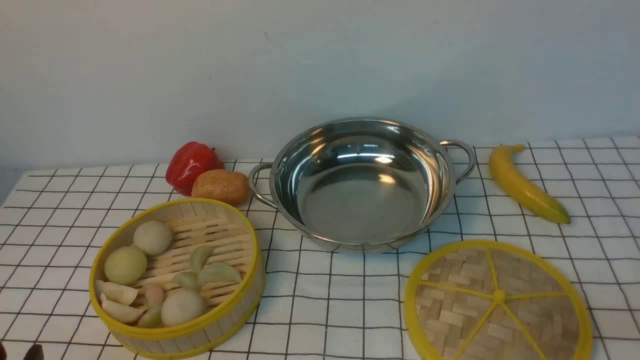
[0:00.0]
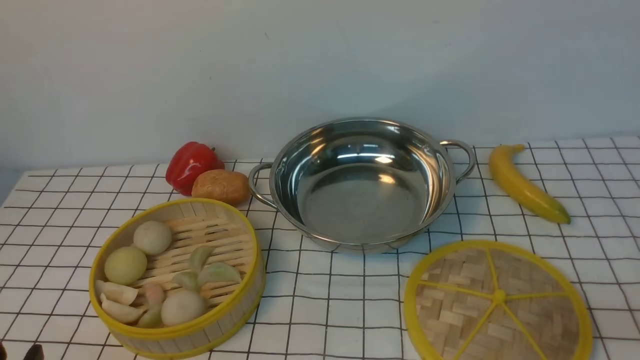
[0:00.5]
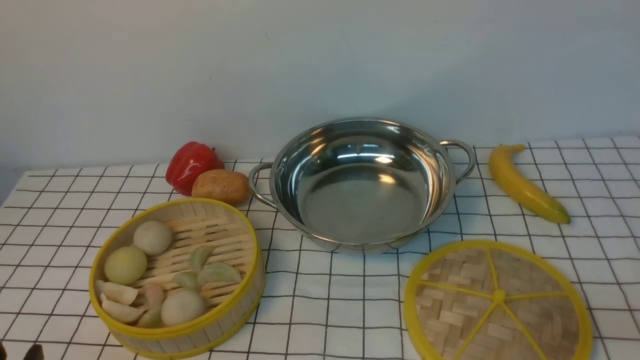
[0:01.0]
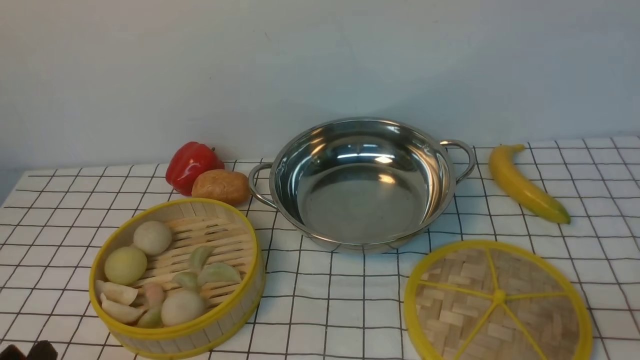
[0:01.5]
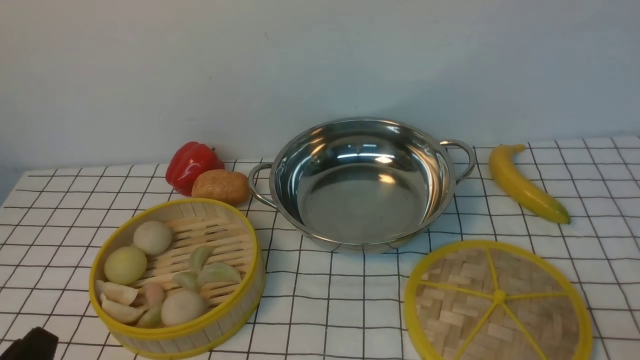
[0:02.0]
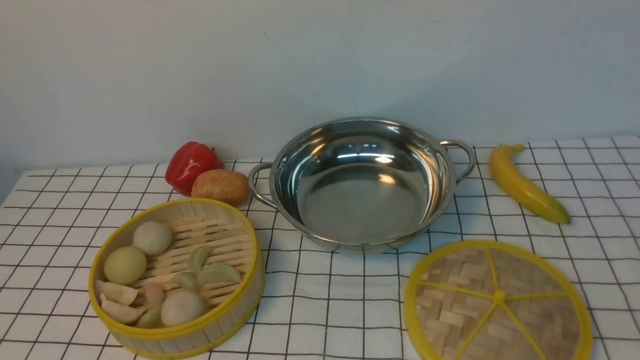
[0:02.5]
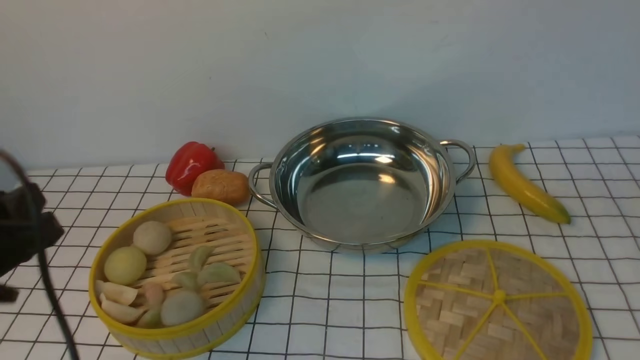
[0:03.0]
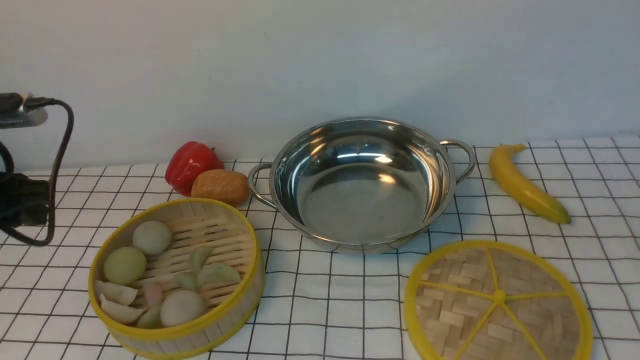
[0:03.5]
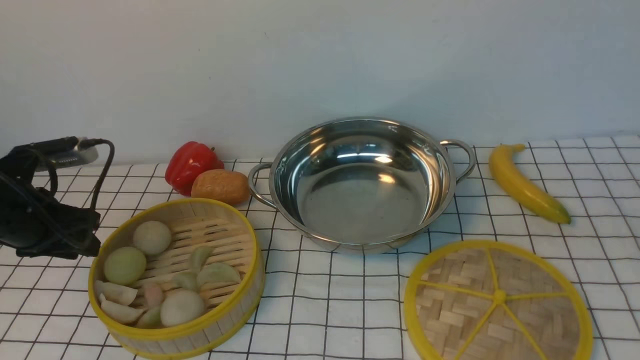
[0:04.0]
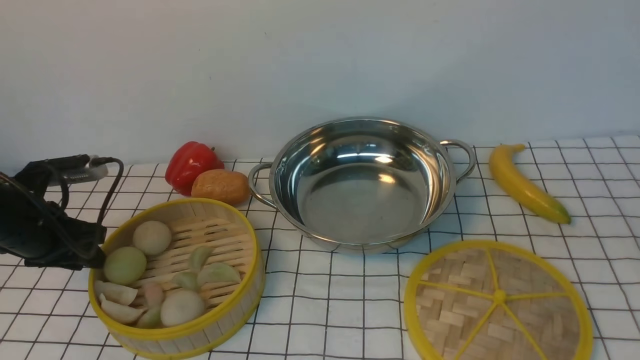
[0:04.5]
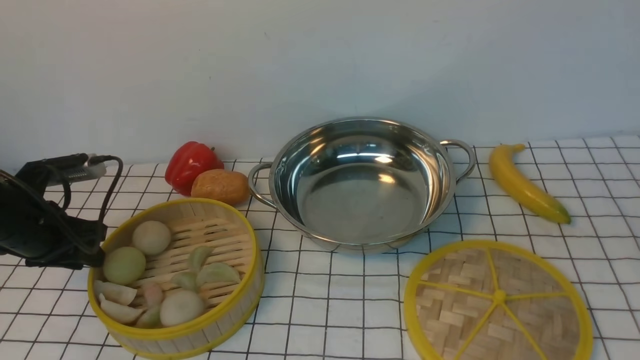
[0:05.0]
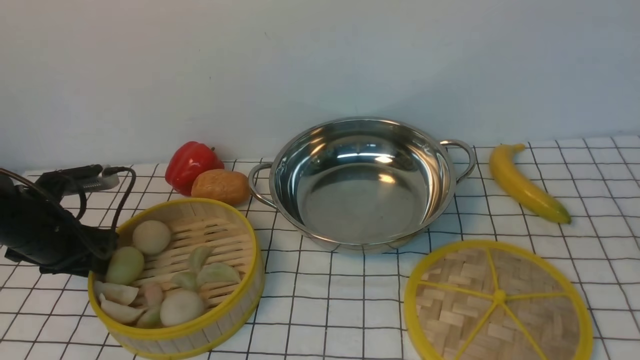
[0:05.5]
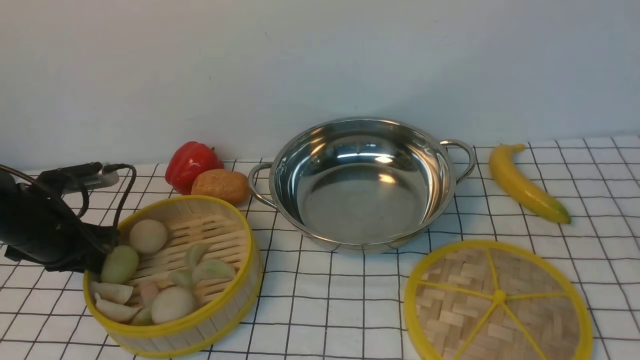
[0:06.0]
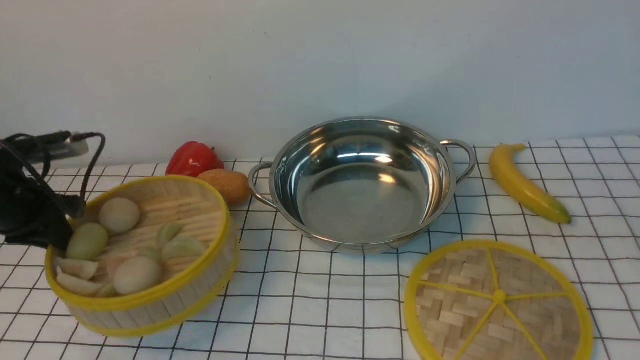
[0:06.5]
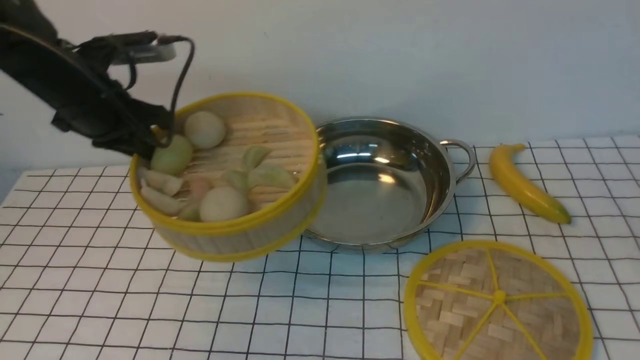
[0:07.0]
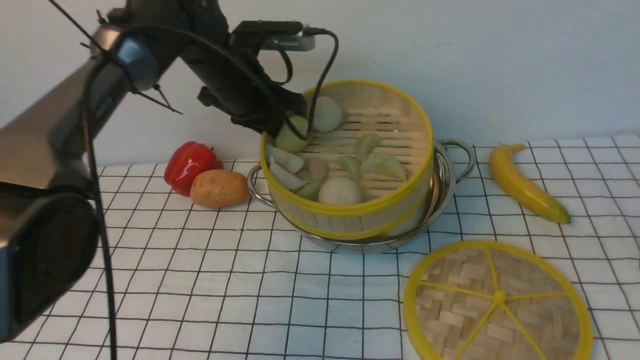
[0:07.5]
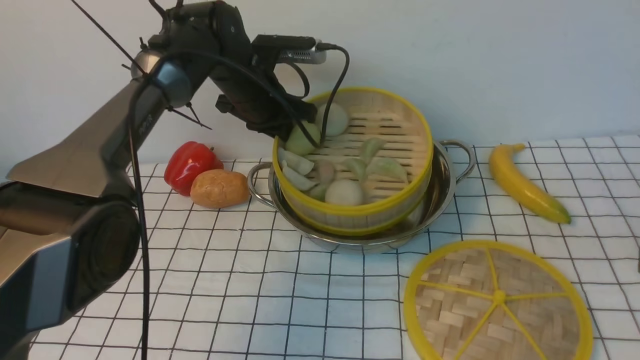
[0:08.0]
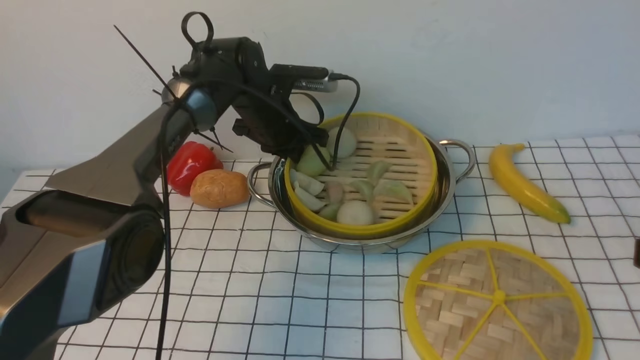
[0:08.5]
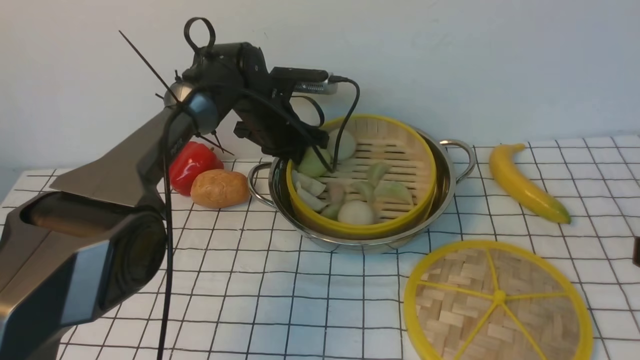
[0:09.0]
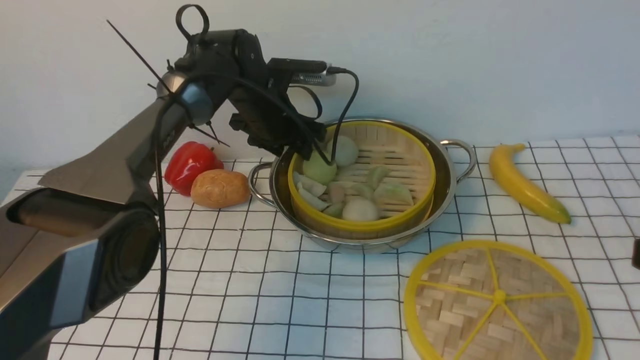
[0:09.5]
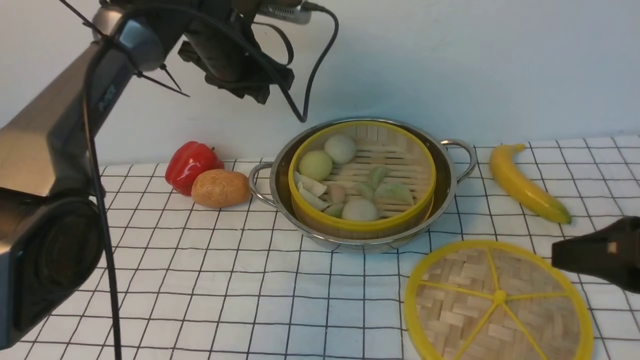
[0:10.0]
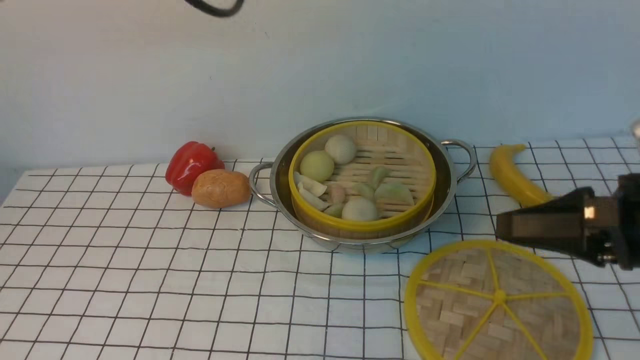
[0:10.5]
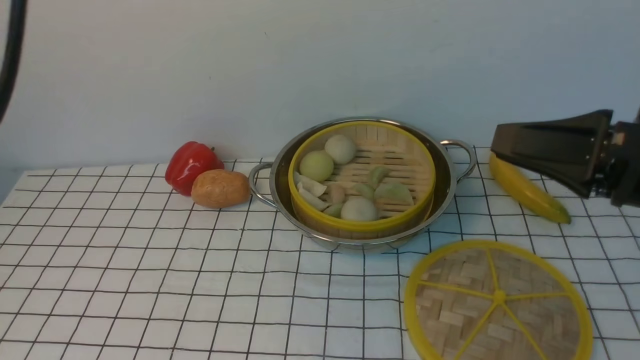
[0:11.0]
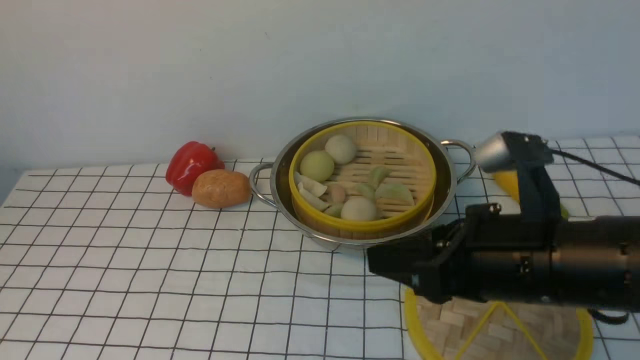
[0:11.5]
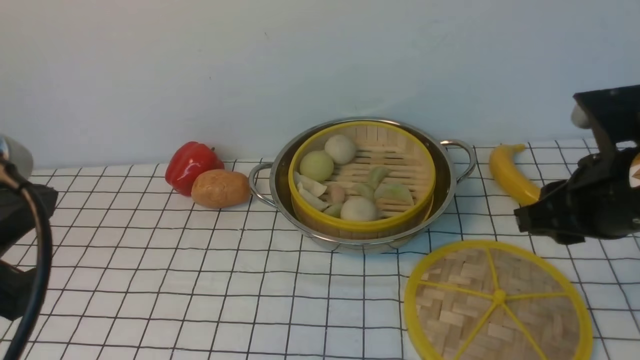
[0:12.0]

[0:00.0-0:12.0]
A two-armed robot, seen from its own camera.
Task of the whole recording: place the steamer in the pot on the white tablecloth, and put the lid on the steamer.
Step, 0:00.0 to 0:06.0: use the left arm to lift the steamer closest to it.
Step, 0:06.5 to 0:09.5: use the left arm to put the steamer into the iron steamer pot in the middle.
0:02.0 to 0:04.0: The left gripper shifts some 25 cm forward.
0:04.0 to 0:06.0: The left gripper heads downward, covering roughly 5 cm, and closes up.
0:06.0 to 0:08.0: The left gripper moves to the right and forward, roughly 30 cm.
0:08.0 to 0:10.0: The right gripper moves approximately 5 cm; the left gripper travels upward by some 5 cm, and opens its fingers.
0:10.0 to 0:12.0: The right gripper heads forward and to the left, covering about 10 cm. Meanwhile the left gripper shifts some 35 cm backward, and closes its fingers.

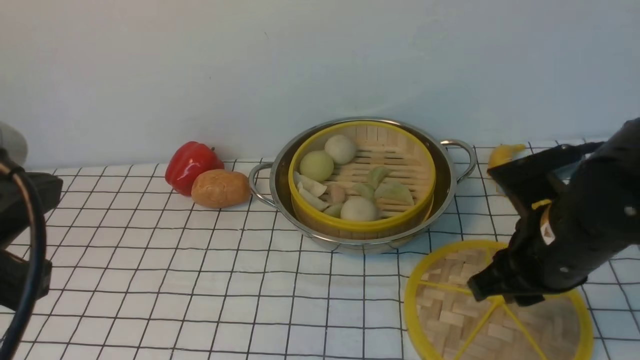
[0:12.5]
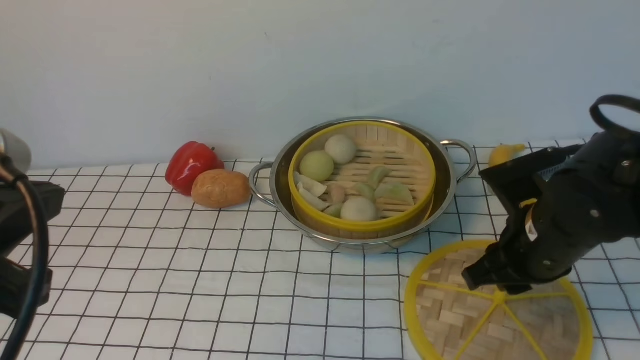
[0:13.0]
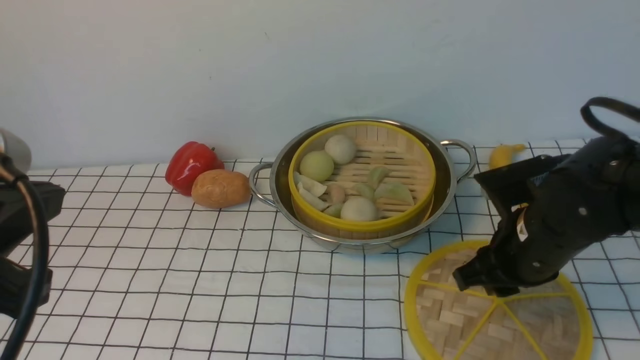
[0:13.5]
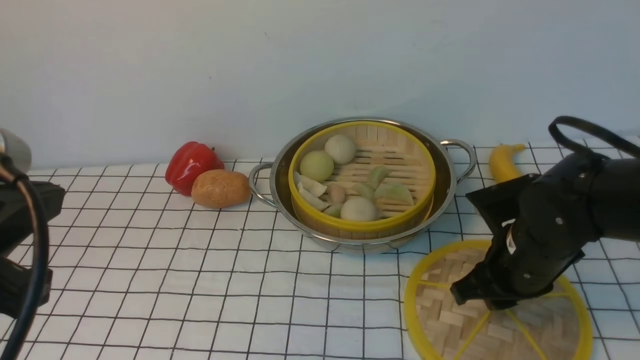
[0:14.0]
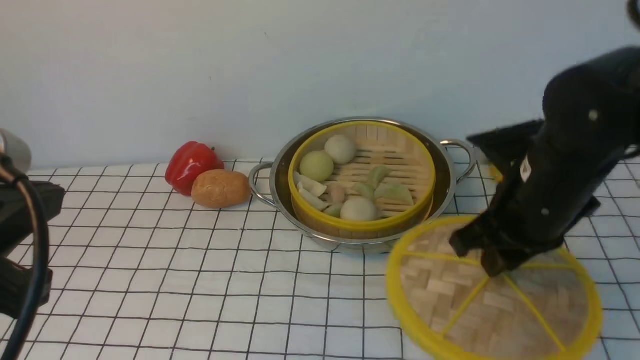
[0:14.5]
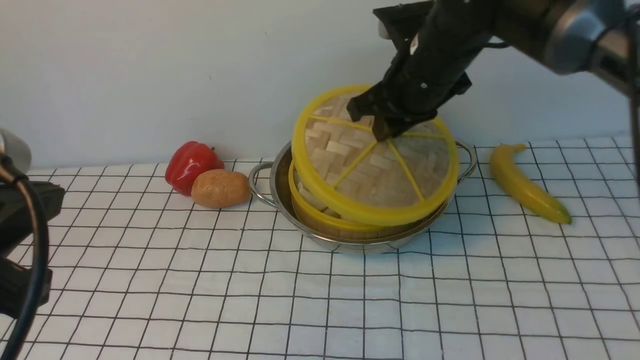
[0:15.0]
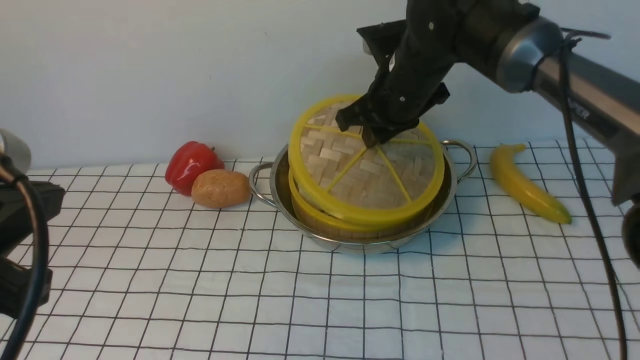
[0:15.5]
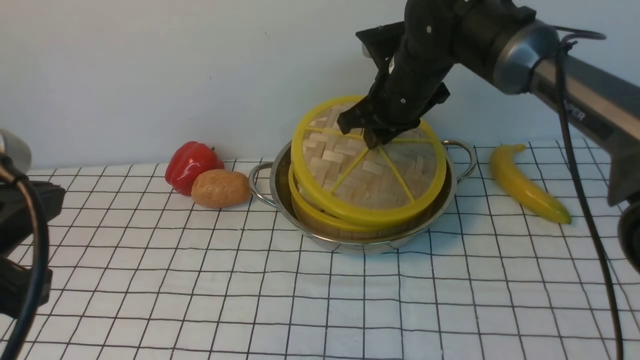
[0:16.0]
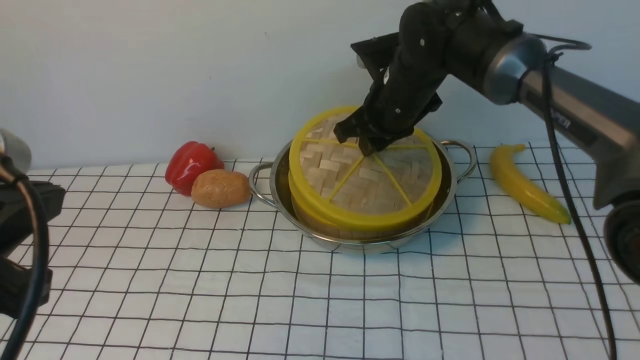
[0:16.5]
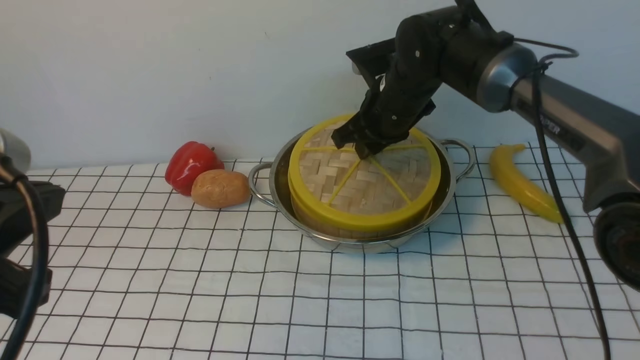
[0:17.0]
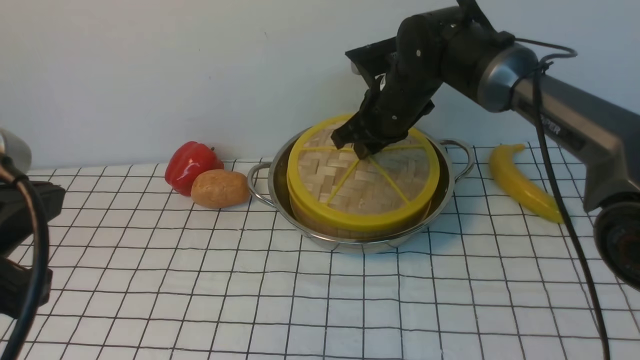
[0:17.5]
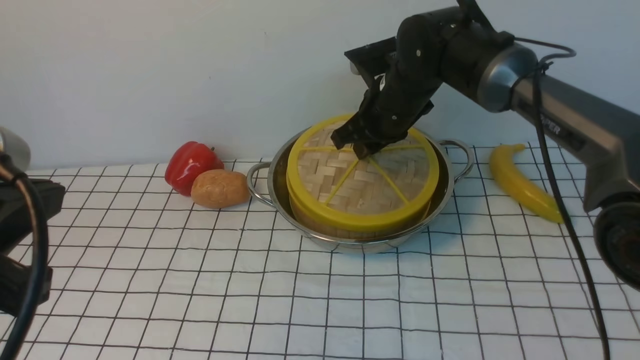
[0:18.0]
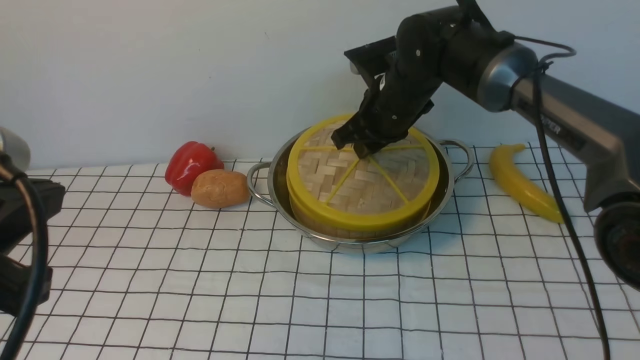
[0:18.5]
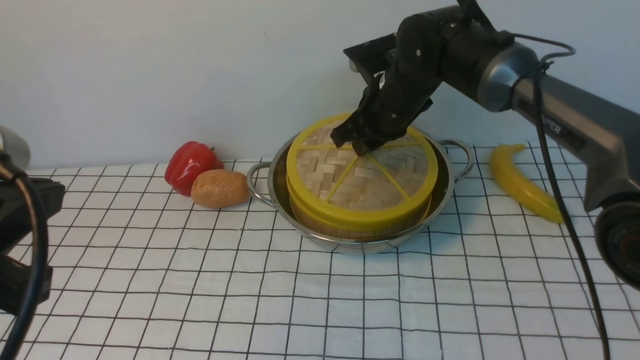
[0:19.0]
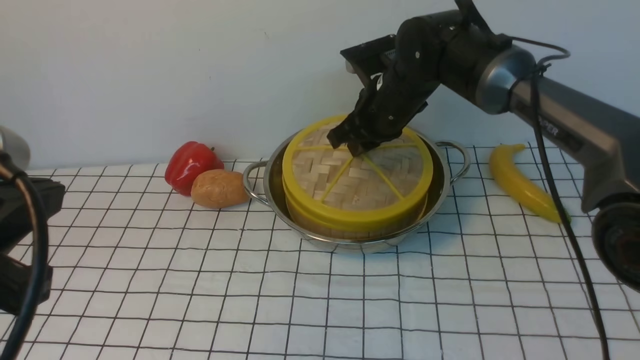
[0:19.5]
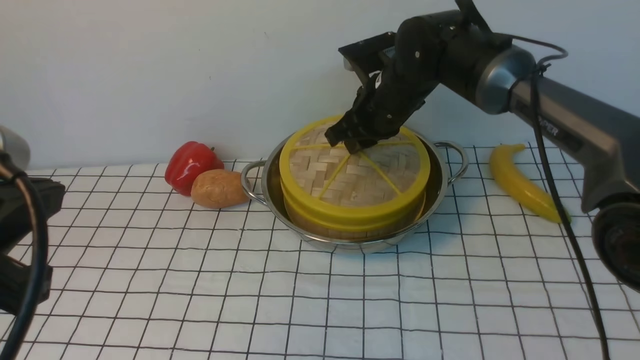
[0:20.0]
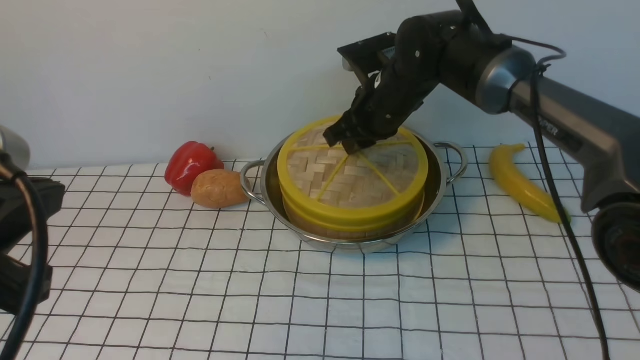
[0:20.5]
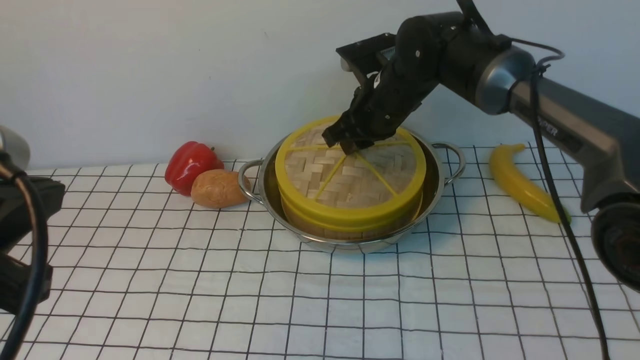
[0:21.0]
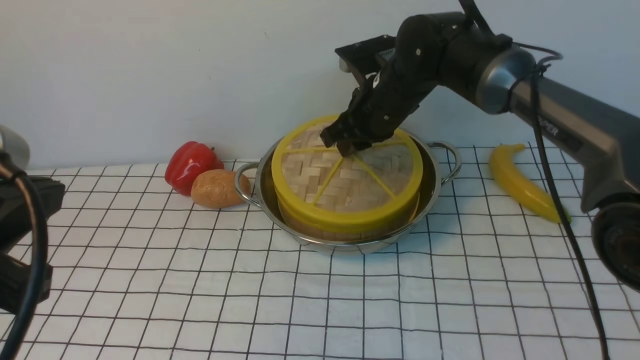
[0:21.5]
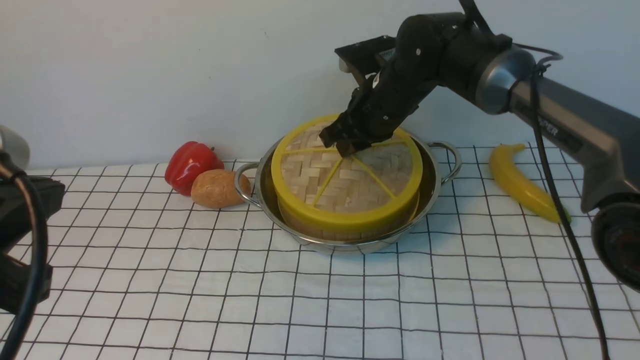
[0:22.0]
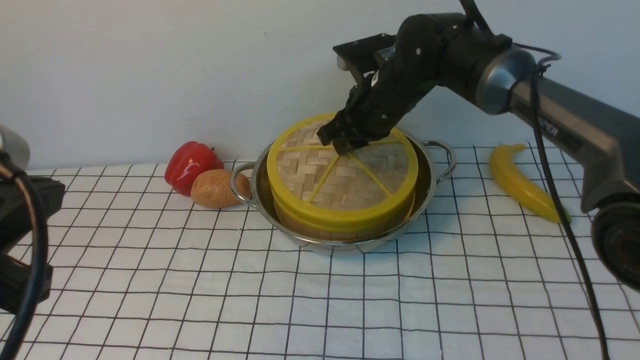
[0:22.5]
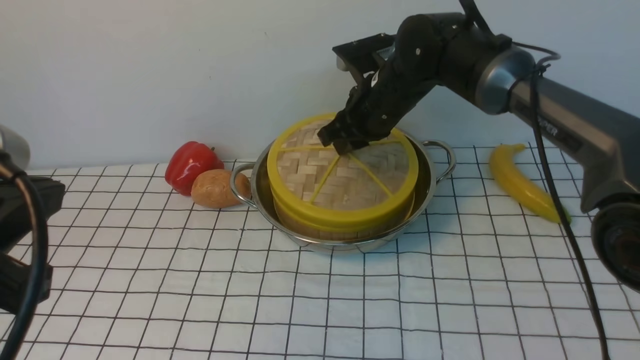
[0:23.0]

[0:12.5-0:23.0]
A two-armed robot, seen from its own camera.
Task of the whole recording: place the steamer in the pot on the white tablecloth, and put the lid on the steamer.
0:12.5 to 0:14.5: The right gripper goes downward and returns, about 10 cm each way, and closes its fingers.
0:14.5 to 0:16.5: The right gripper goes some 20 cm forward and to the left.
0:16.5 to 0:21.0: The grippers make only small movements.
0:21.0 to 0:23.0: Both grippers stay put.
